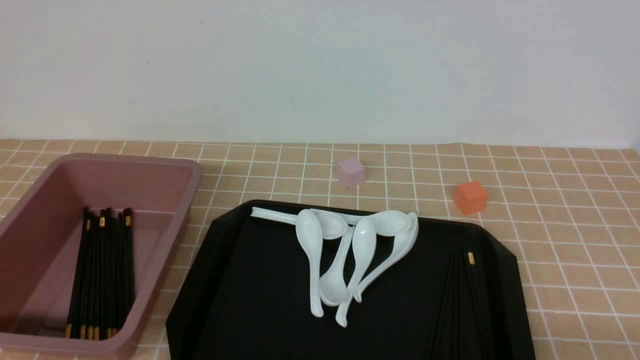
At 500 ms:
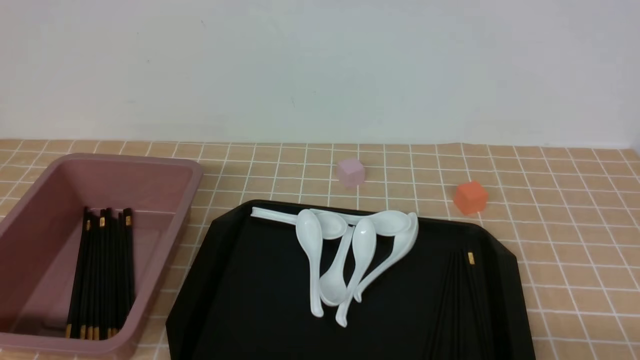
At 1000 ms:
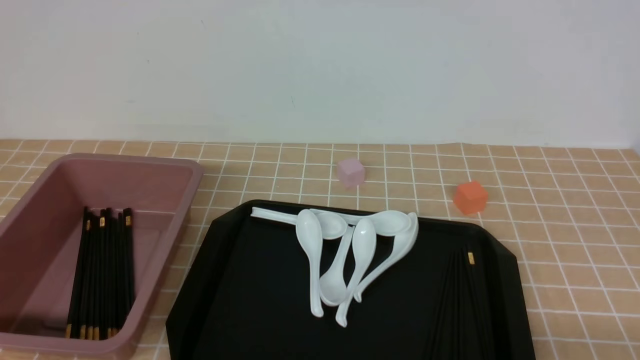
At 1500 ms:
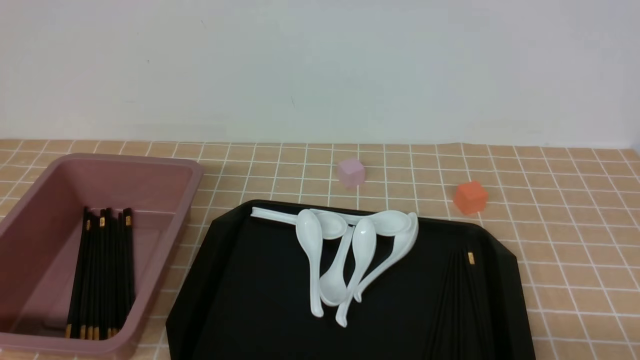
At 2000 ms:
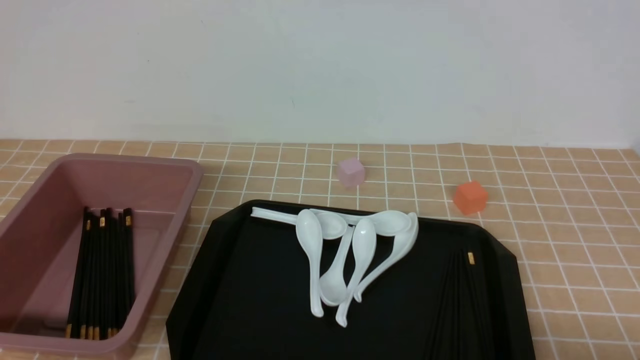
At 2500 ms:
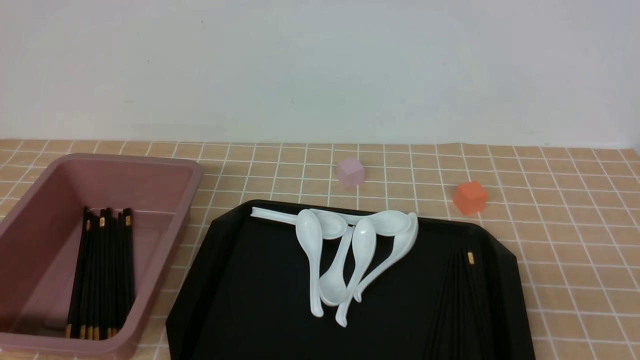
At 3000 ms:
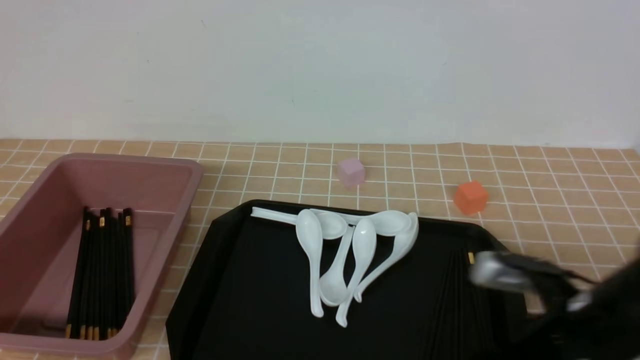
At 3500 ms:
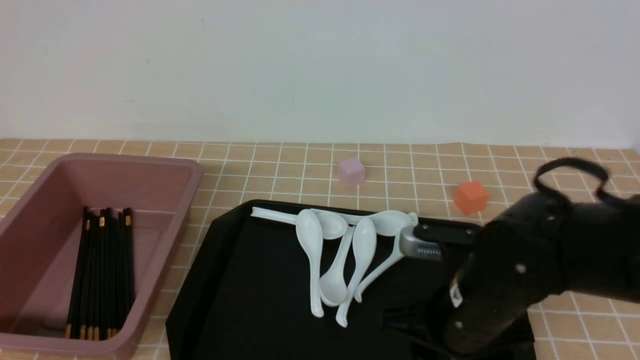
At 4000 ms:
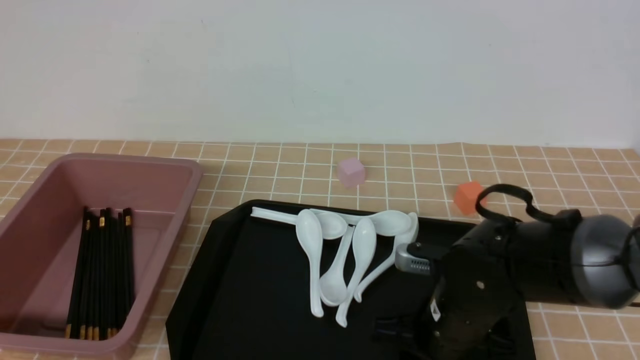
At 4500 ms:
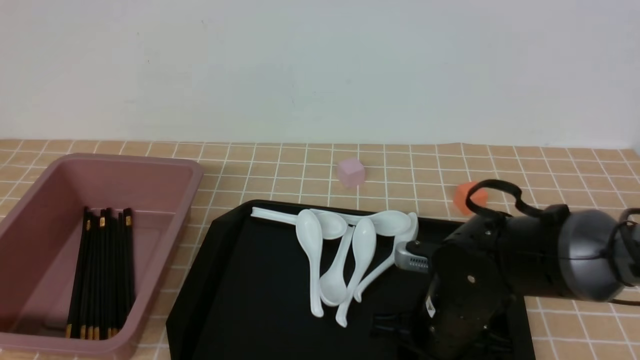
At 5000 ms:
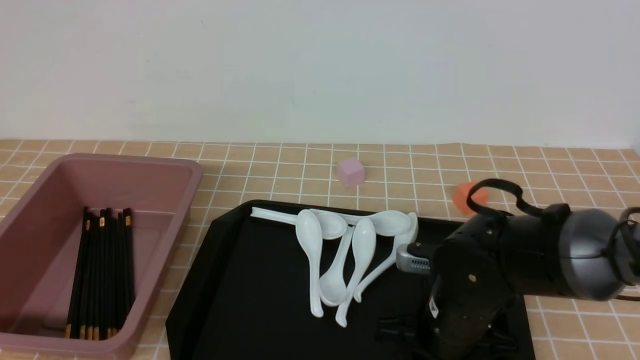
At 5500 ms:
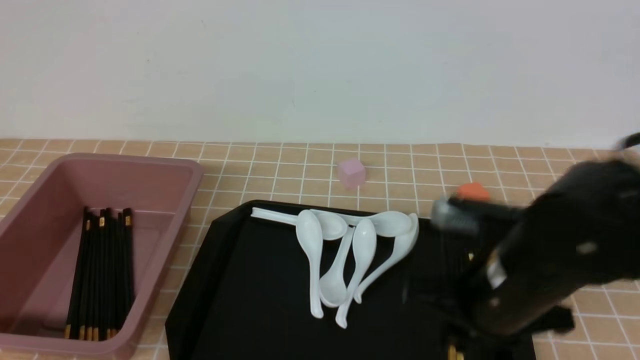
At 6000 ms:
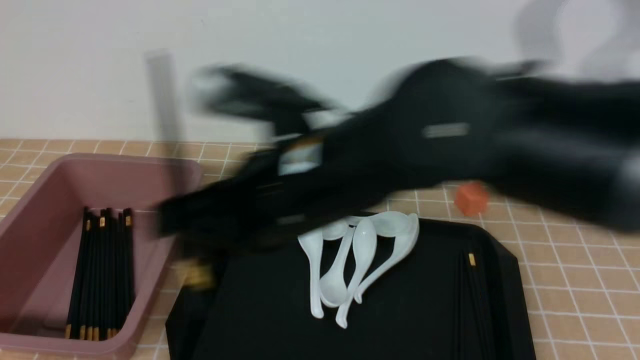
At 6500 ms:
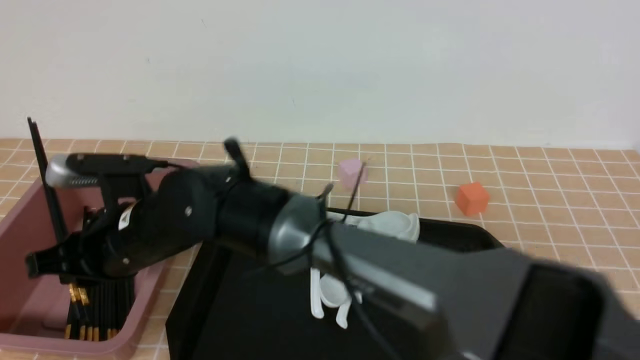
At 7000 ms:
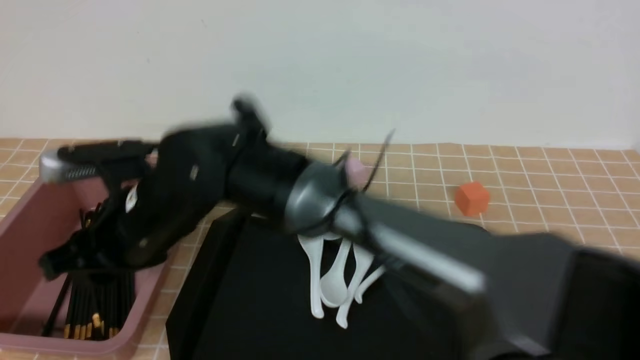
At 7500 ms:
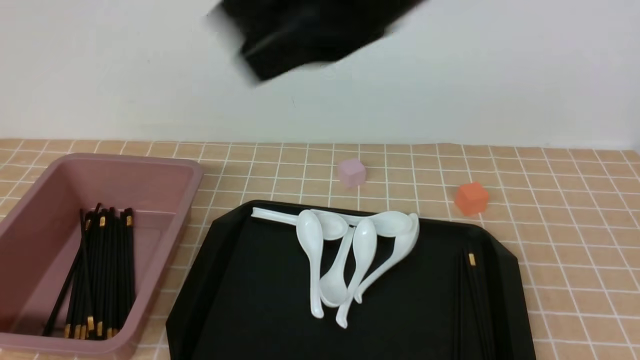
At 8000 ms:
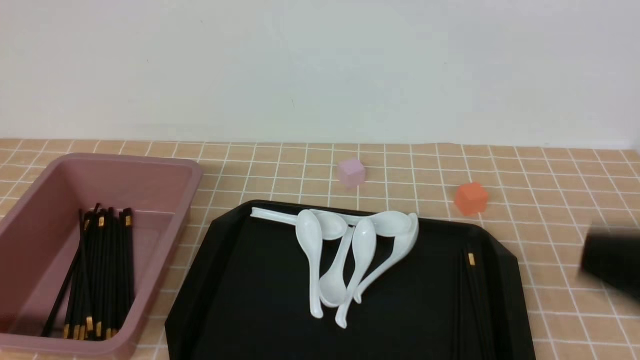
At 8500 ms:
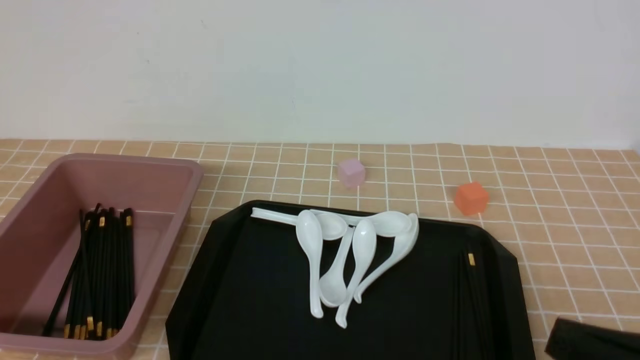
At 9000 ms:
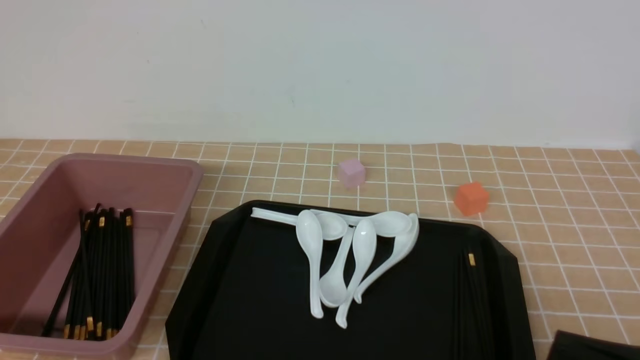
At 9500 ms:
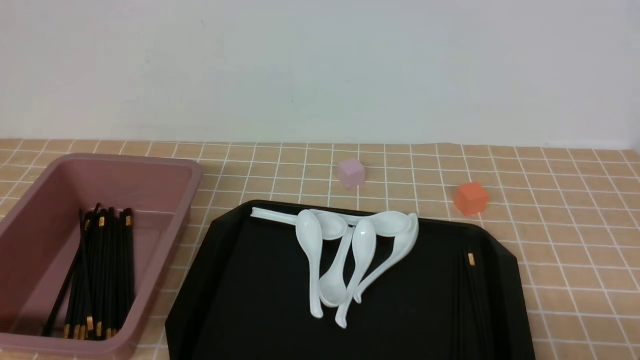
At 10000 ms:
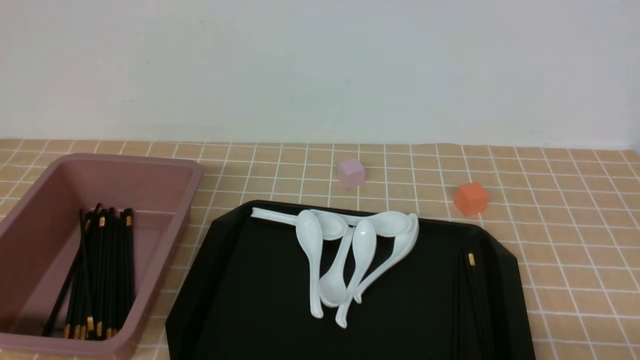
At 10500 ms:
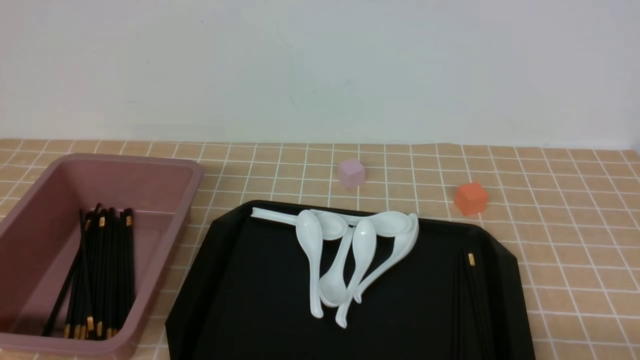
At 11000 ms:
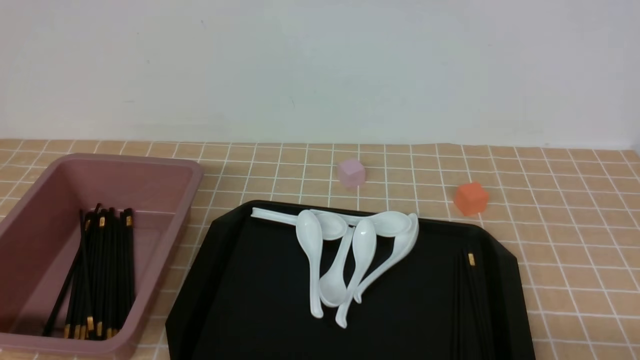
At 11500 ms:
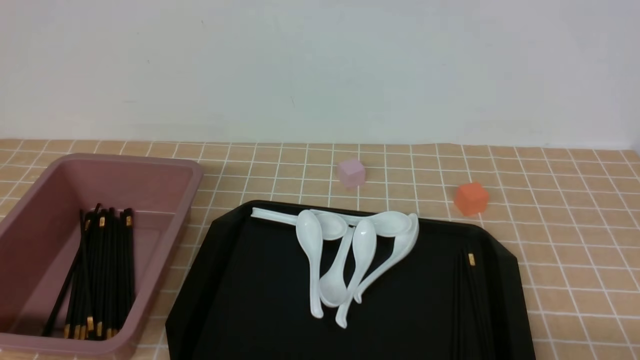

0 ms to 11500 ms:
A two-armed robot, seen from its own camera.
Step, 0 ms to 5500 ms: use the right arm to grab a pair of chopsticks.
Step, 6000 ms to 7000 ms: use the right arm to put the chopsticks into the lunch box.
2000 ms to 4000 ms: The right gripper heads forward and to the left, covering approximately 25 cm, and opens.
4000 ms to 6000 ms: The right gripper goes some 25 cm upward and to the left, and closes its fingers.
6000 ms to 7500 ms: The right gripper goes approximately 20 cm upward and to the right, and closes its fingers.
7500 ms to 9500 ms: The right gripper goes about 40 cm downward, to the right and backward.

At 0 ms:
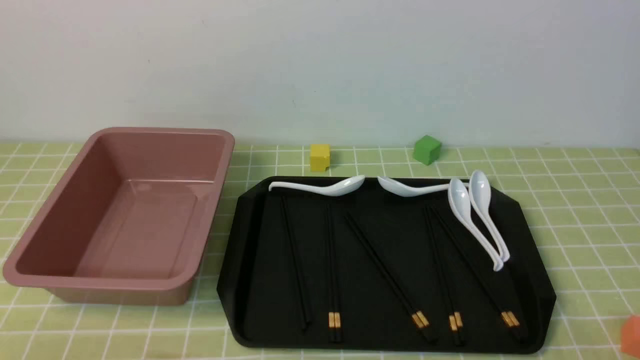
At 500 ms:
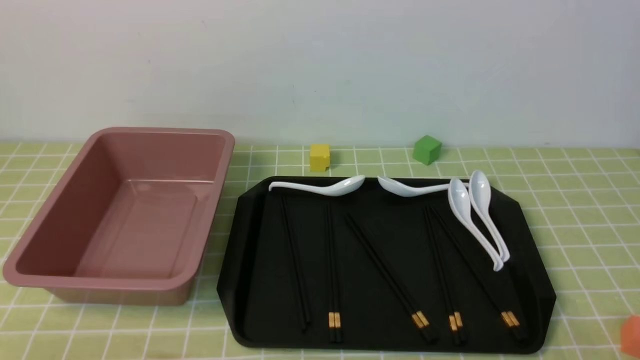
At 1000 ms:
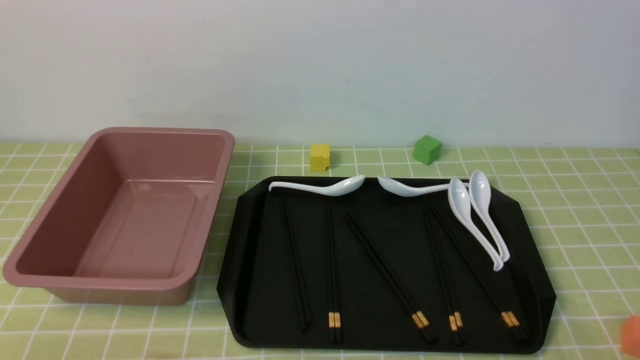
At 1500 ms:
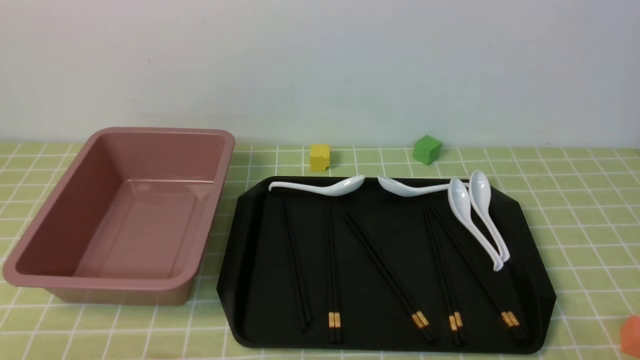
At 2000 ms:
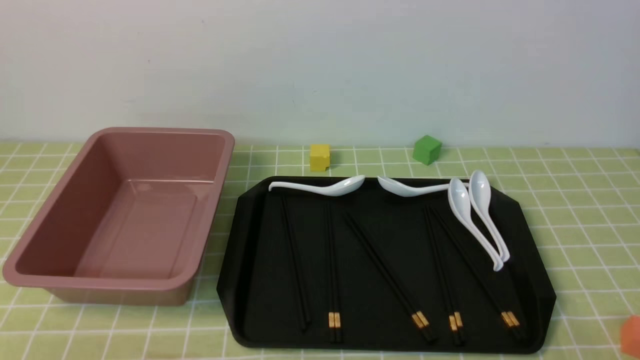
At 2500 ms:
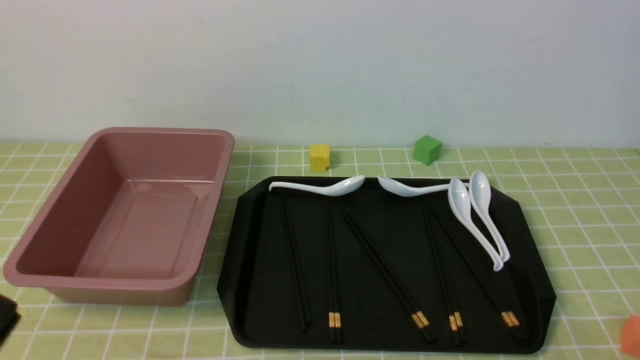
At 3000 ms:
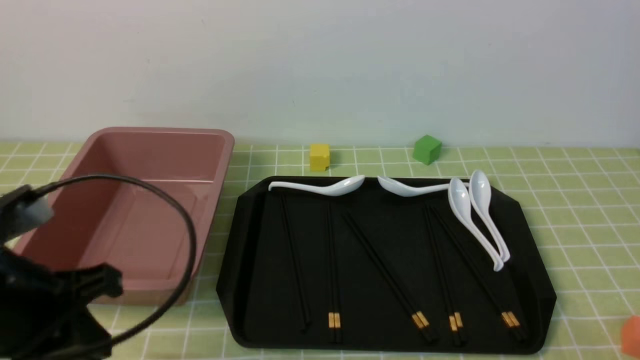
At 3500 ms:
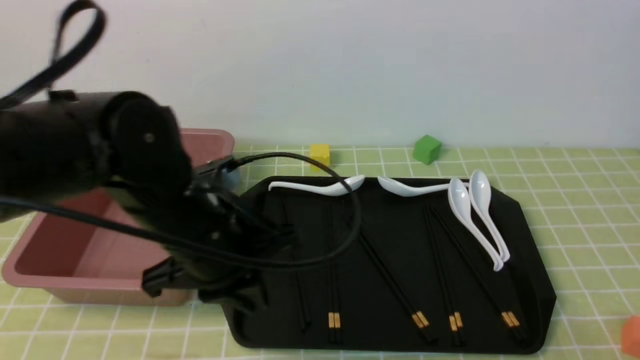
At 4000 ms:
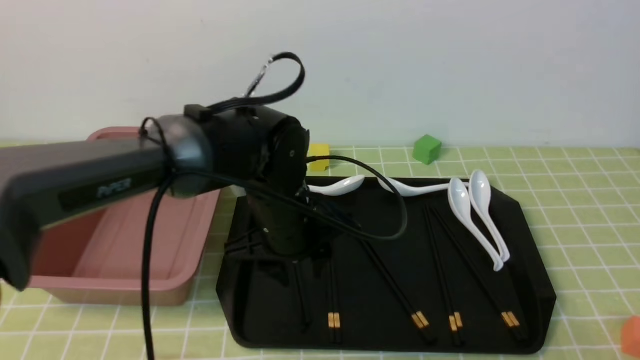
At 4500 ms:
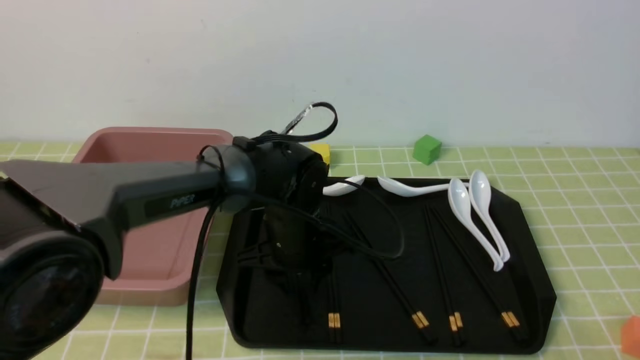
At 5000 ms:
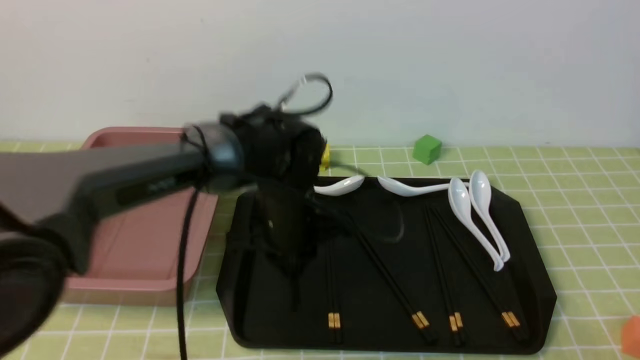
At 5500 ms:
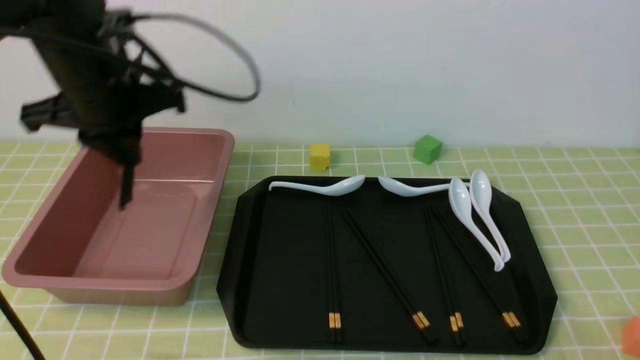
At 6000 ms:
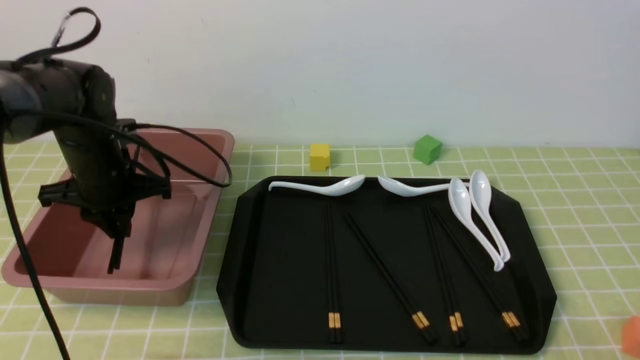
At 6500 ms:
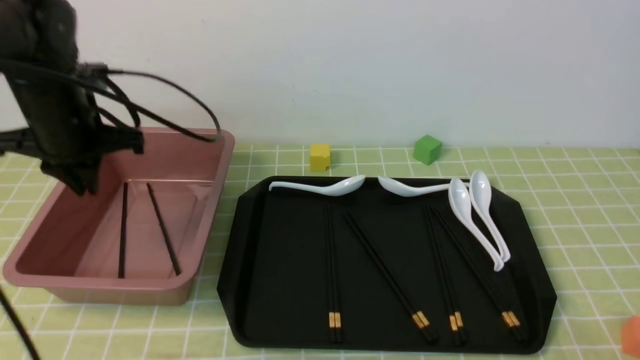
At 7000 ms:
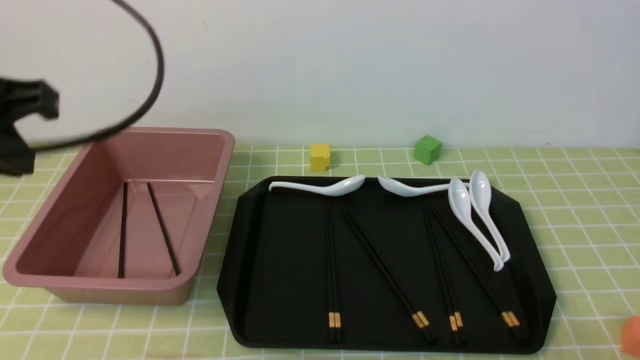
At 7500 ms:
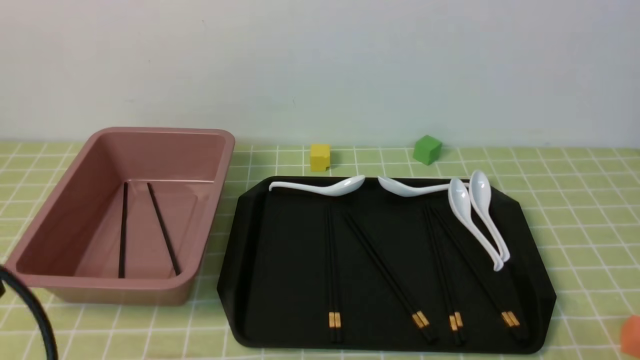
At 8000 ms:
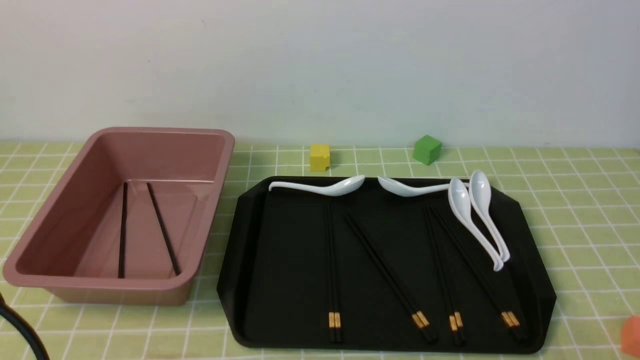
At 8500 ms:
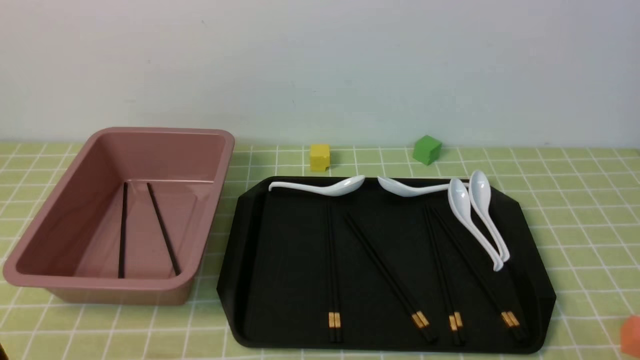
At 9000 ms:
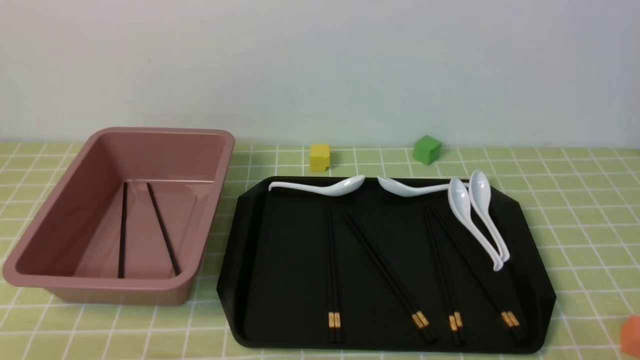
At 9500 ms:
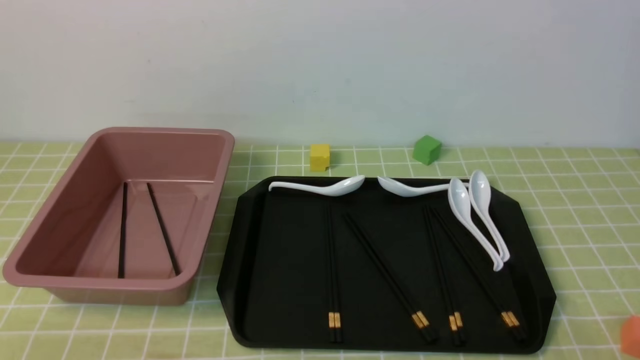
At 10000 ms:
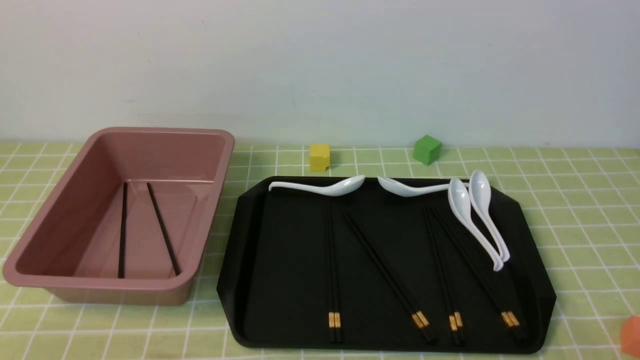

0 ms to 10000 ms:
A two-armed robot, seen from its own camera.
Step, 0 ms to 5000 ms: use the left arm to grab a pair of chopsticks.
Step, 5500 ms to 6000 ms: use the left arm to put the chopsticks into the lunch box.
2000 ms to 4000 ms: The left gripper moves forward and to the right, approximately 35 cm, and closes, then reopens.
4000 ms to 6000 ms: The left gripper goes some 20 cm to the left, and closes up.
6000 ms to 8000 ms: The left gripper travels backward by roughly 35 cm, and closes up.
